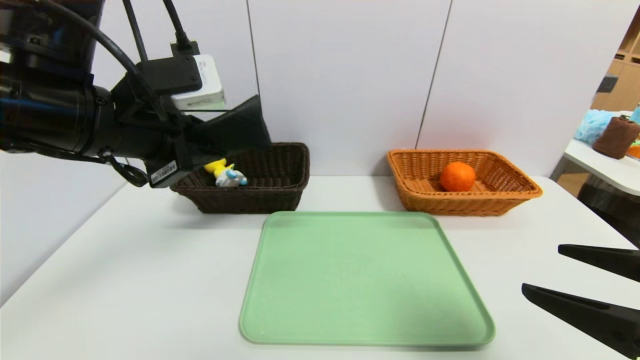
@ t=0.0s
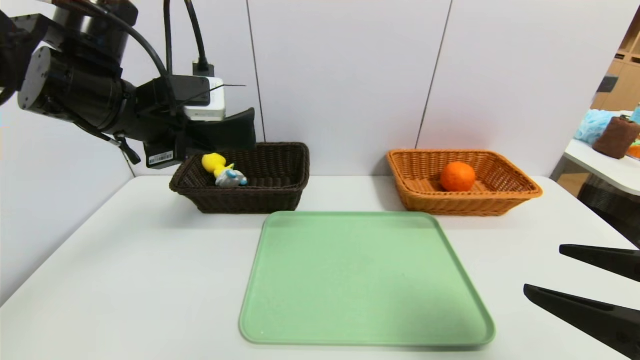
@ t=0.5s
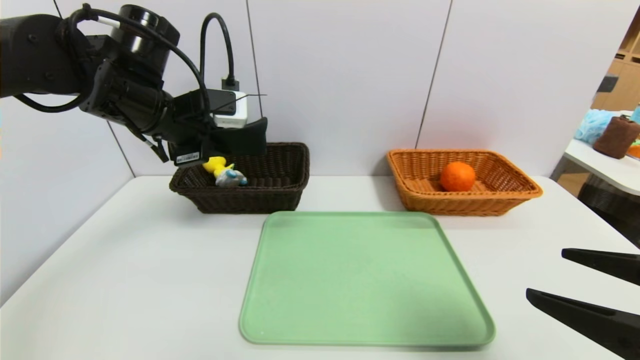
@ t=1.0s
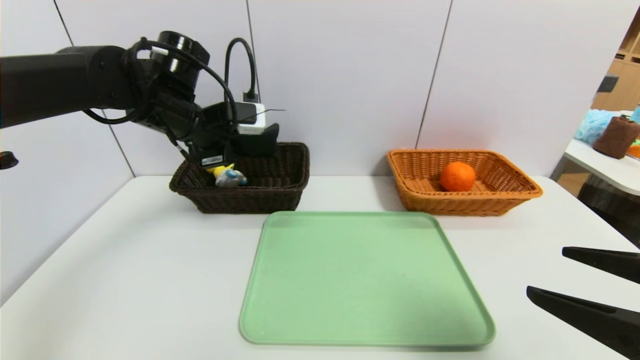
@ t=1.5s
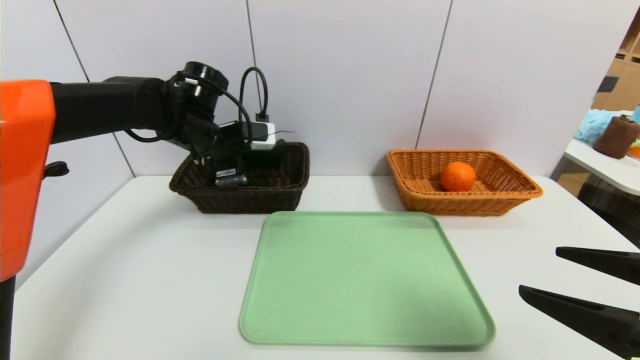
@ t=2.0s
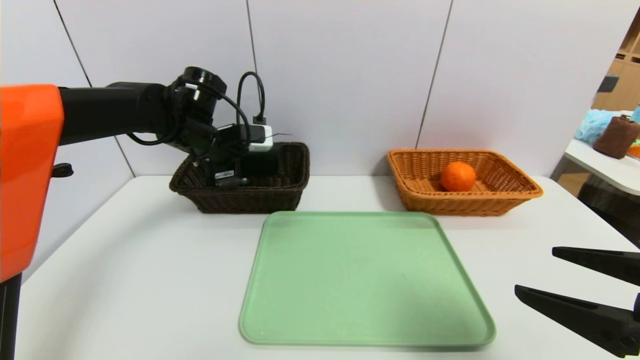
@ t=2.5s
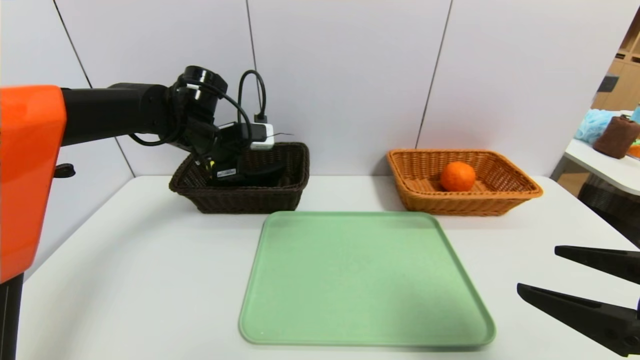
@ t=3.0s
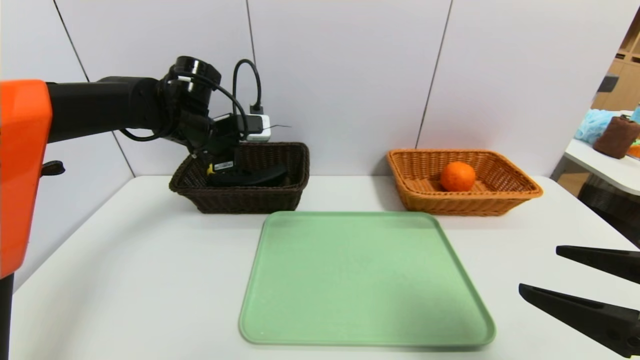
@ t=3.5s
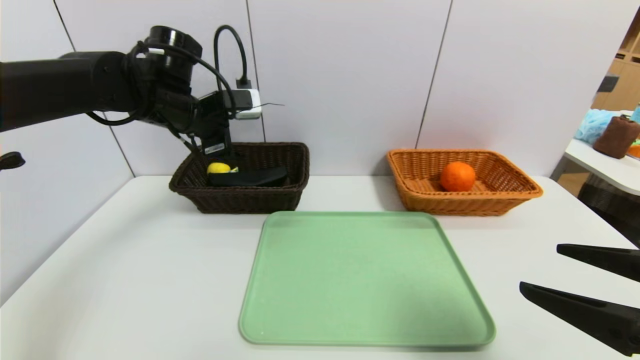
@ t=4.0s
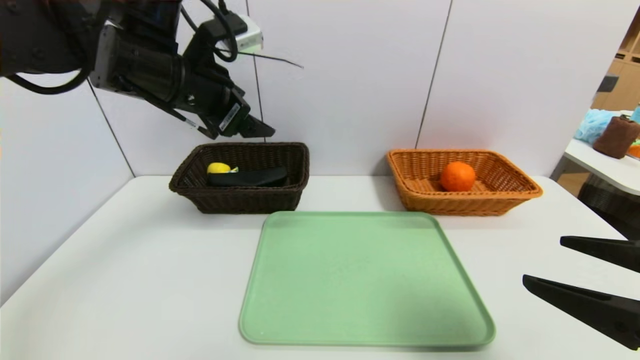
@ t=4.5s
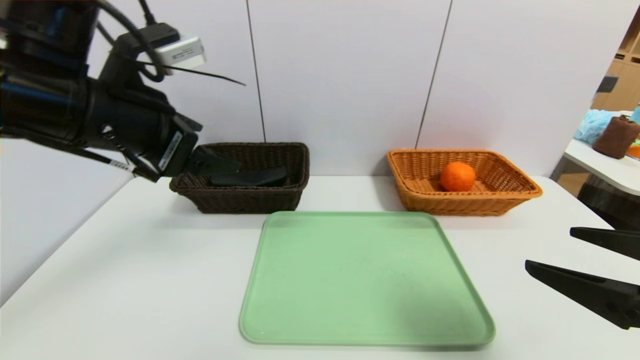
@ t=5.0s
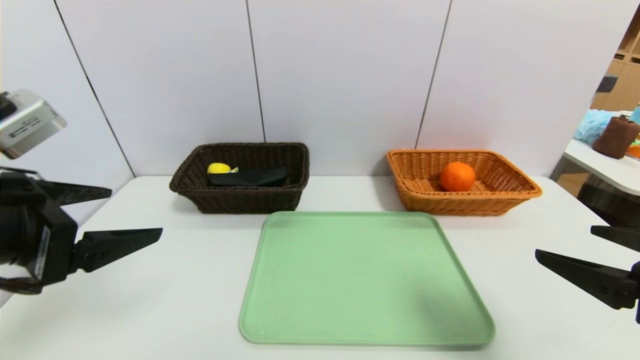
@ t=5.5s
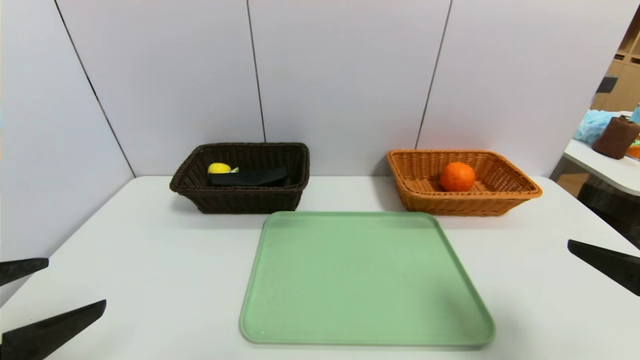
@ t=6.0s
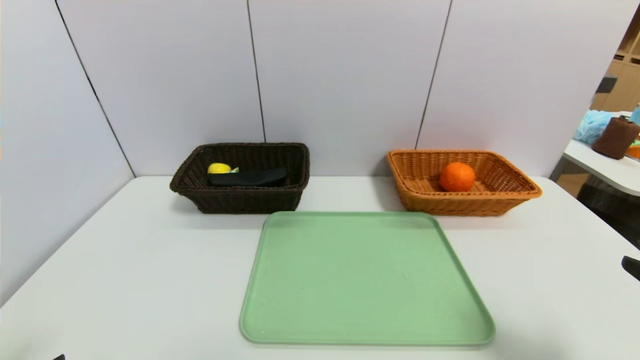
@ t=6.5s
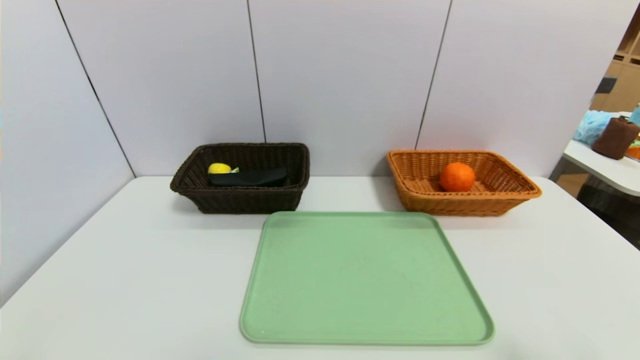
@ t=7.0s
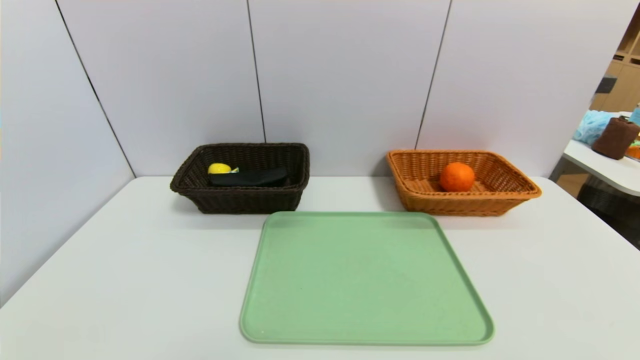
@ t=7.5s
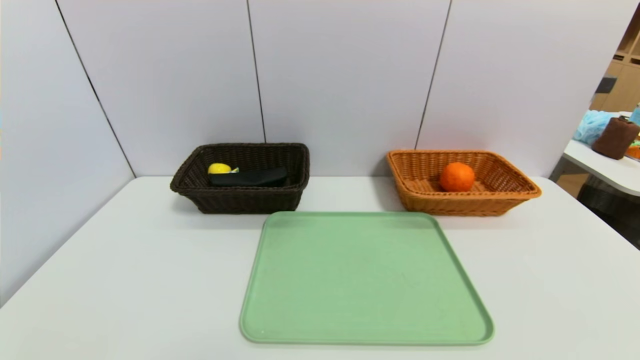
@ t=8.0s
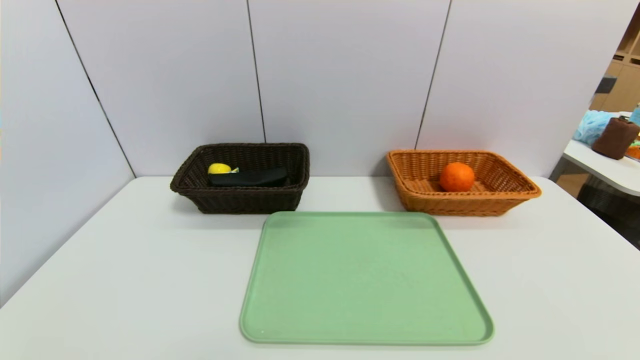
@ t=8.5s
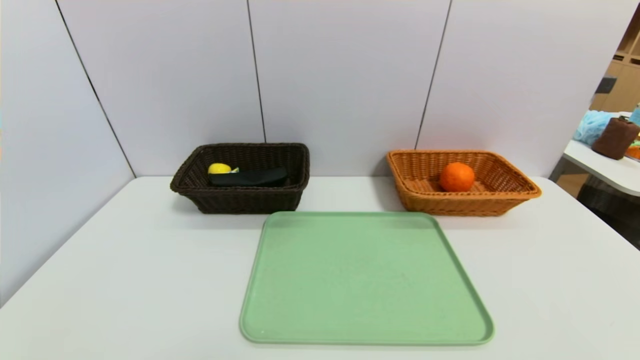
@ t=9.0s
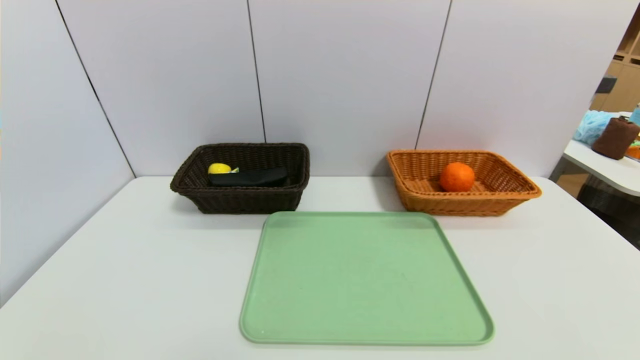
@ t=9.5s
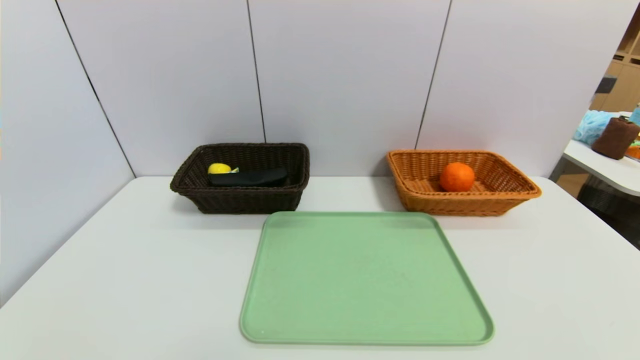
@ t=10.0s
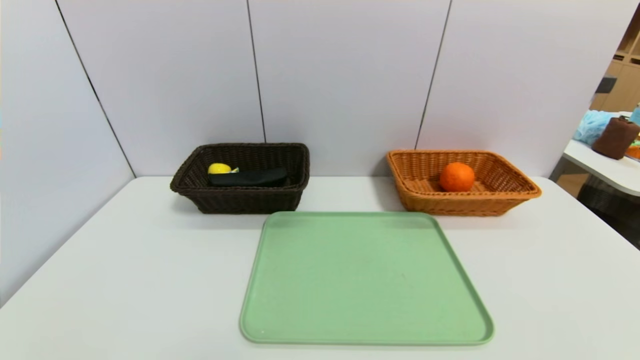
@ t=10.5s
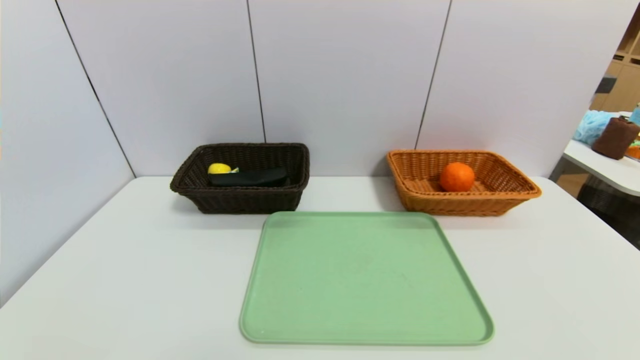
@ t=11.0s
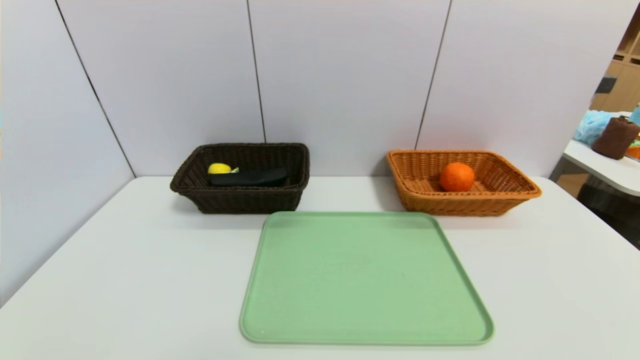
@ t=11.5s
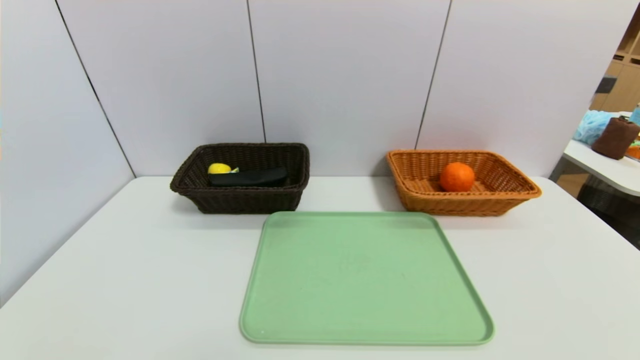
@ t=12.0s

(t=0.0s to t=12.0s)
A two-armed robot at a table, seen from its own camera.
Task of the whole recording: place the food in the right basket with the right gripper, and place the non food items in the left basket with the left gripper.
Step, t=0.0s - t=3.0s: Grasp the glasses case and put it in the left basket.
t=0.0s - t=2.0s: The left gripper moves forward and downward, some 20 cm.
t=2.0s - t=4.0s: The left gripper is displaced upward by approximately 5 cm, and opens up.
t=4.0s - t=6.0s: The left gripper is displaced backward by approximately 35 cm.
t=6.0s - t=8.0s: Both grippers move backward and downward, approximately 15 cm.
